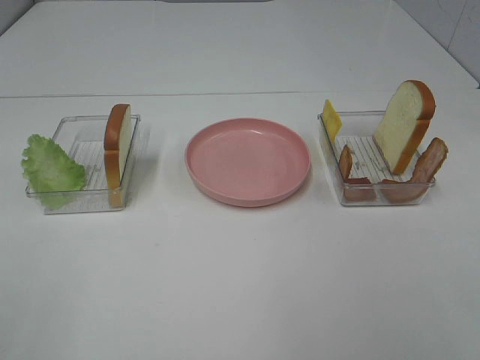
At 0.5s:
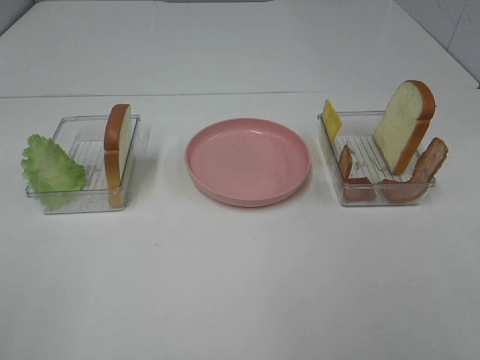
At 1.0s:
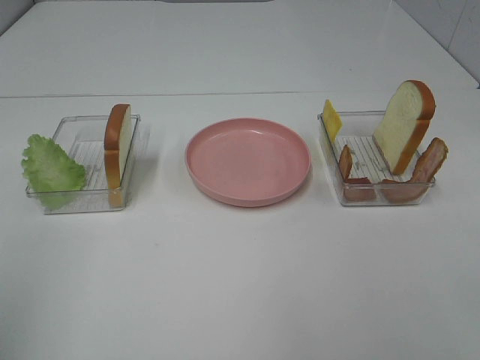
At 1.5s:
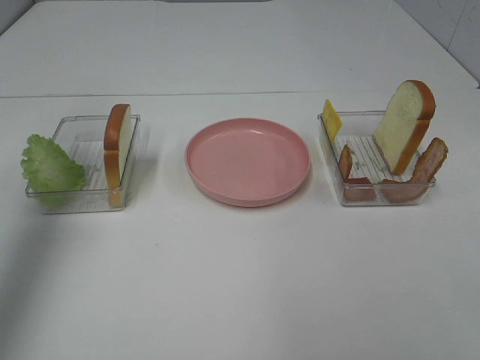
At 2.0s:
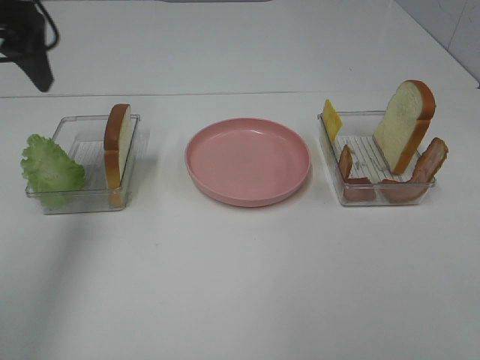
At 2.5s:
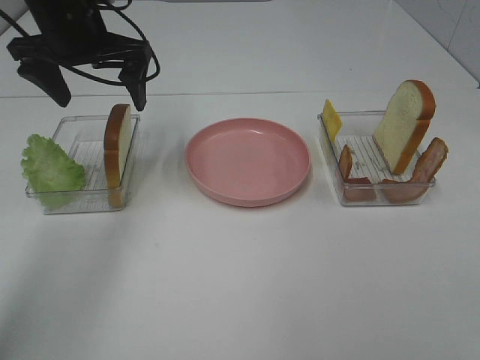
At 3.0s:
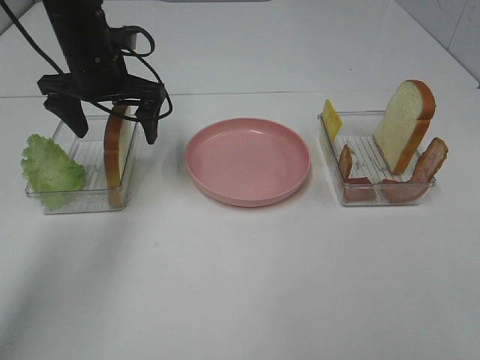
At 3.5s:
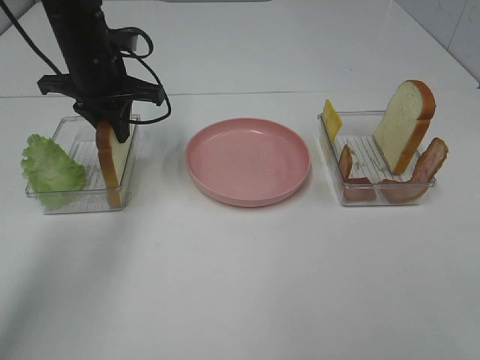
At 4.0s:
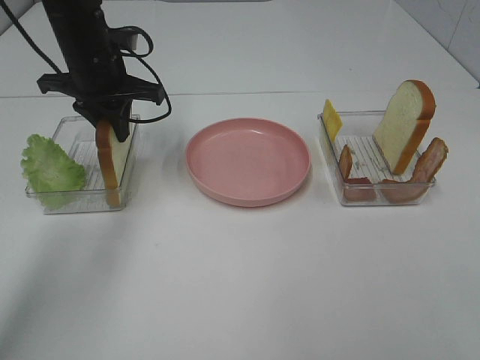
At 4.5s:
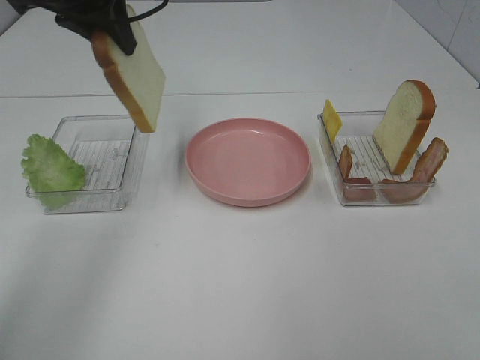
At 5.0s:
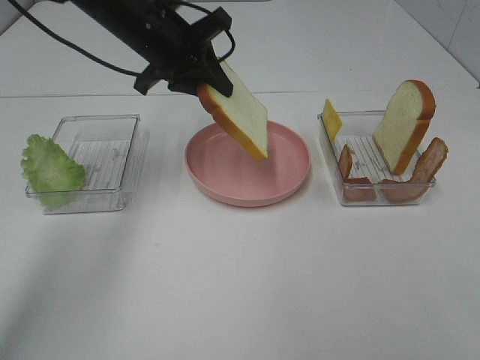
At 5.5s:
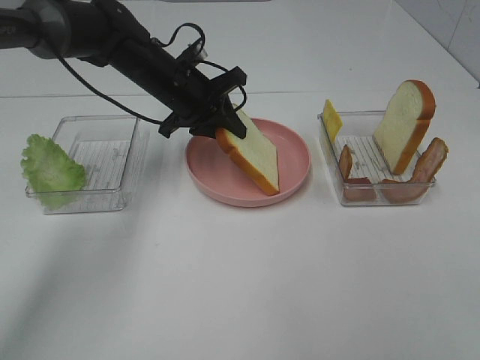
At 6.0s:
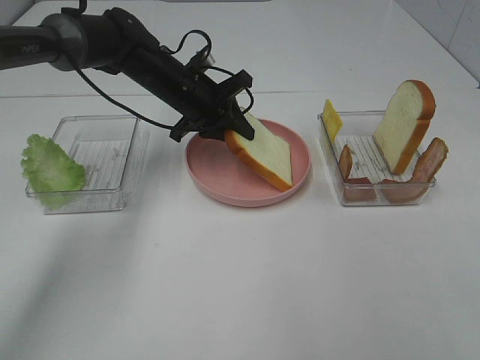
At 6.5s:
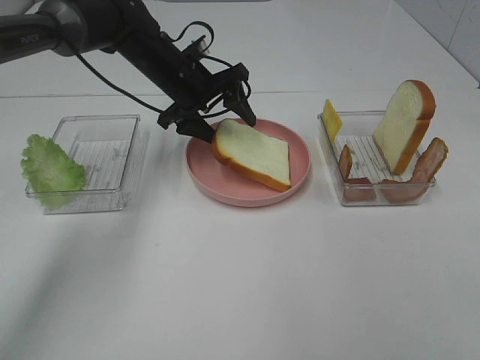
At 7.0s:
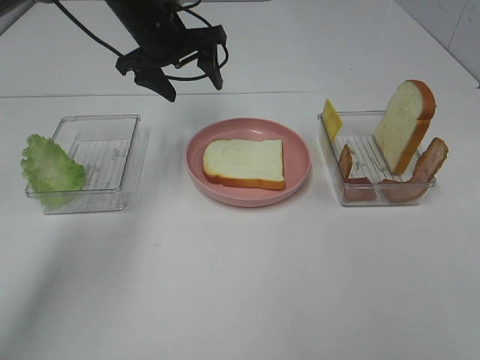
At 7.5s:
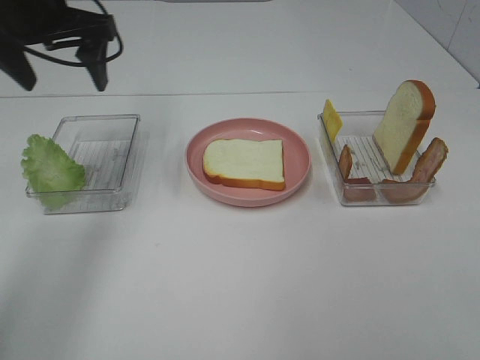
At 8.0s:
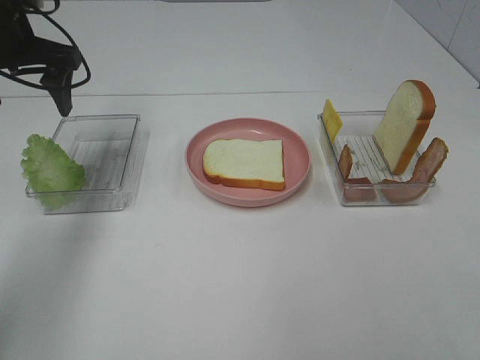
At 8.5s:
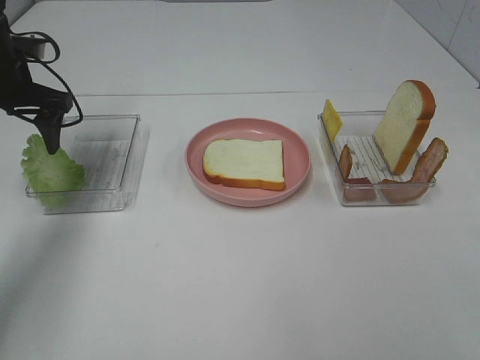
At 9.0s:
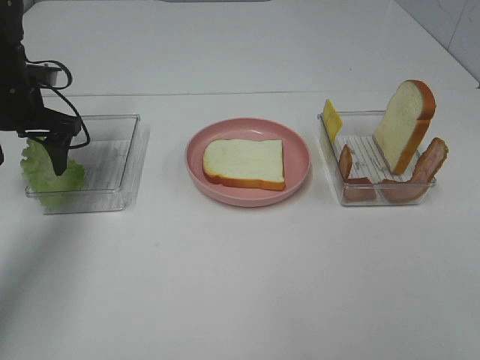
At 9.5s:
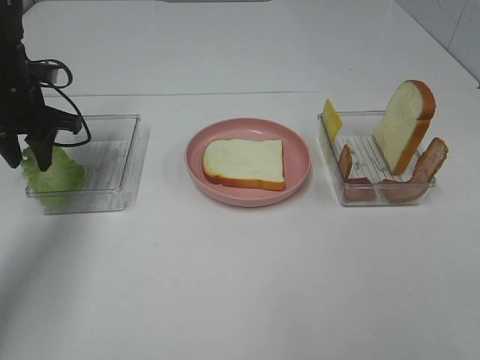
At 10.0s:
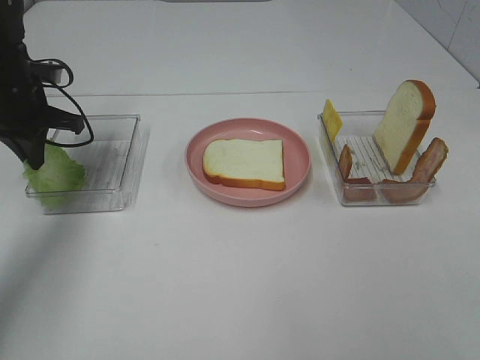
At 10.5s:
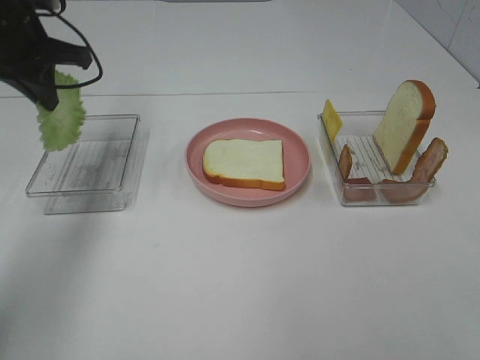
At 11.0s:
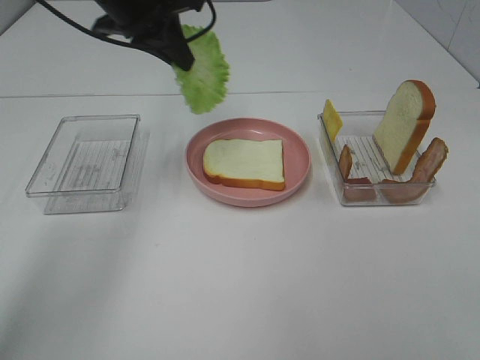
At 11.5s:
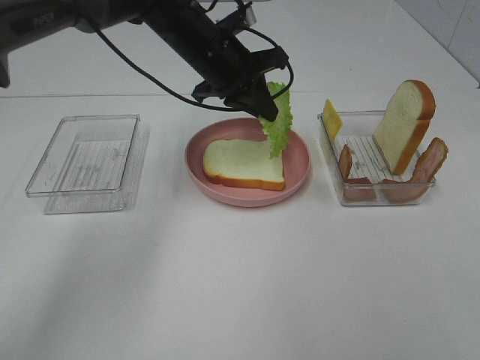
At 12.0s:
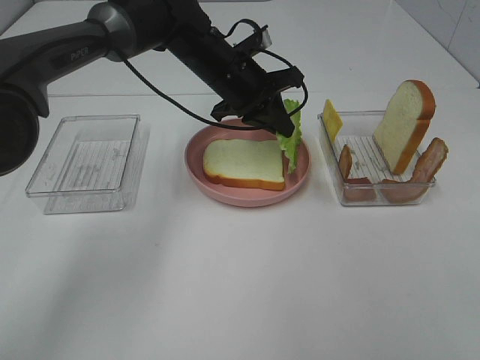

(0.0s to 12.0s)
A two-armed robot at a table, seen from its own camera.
Task of the whole recording: Make sandwiches.
Step, 0.0s - 4.0s: Left hand:grab the bread slice.
Step, 4.5s - 6.5s: Left hand:place the bread slice on the plate.
Step, 7.0s - 10.0s: Left hand:grab the lettuce slice.
0.0s - 2.0s: The left gripper heads forward, covering roughly 35 cm.
2.0s - 4.0s: The left gripper heads downward, forward and to the right, covering approximately 15 cm, and closes up.
4.0s - 6.0s: The left gripper travels to the right and downward by some 10 cm.
6.0s - 8.0s: The left gripper is displaced to the left and upward by approximately 20 cm, and opens.
8.0s - 10.0s: The left gripper shifts roughly 10 cm downward, and closes its fingers.
10.0s - 12.0s: The left gripper heads to the right, covering some 25 cm.

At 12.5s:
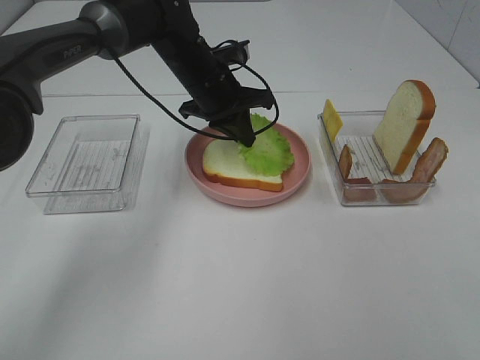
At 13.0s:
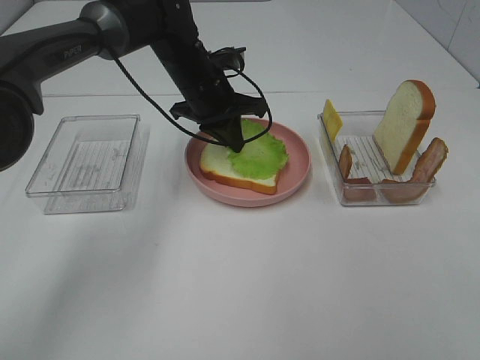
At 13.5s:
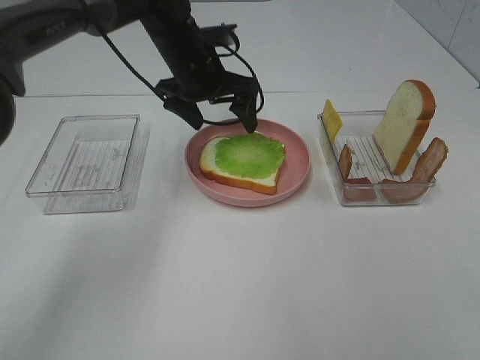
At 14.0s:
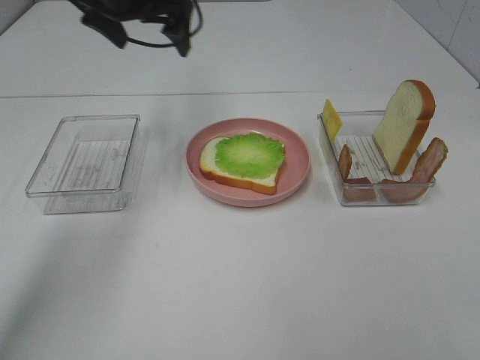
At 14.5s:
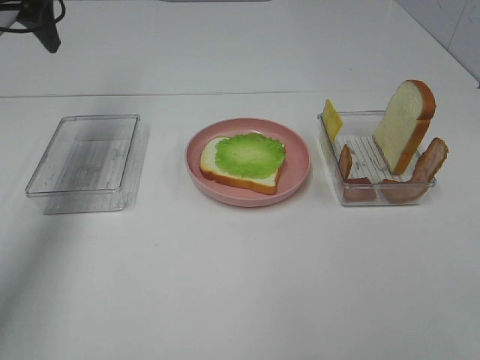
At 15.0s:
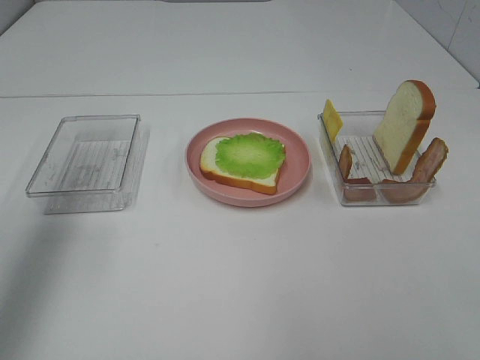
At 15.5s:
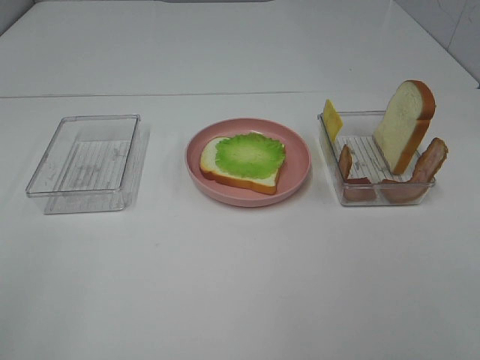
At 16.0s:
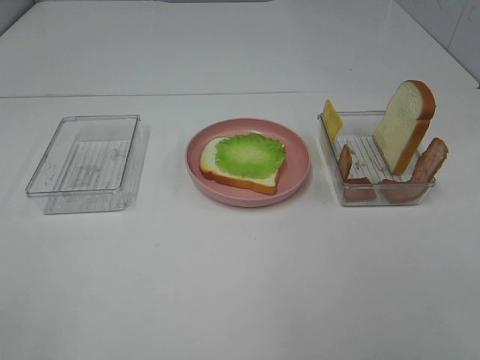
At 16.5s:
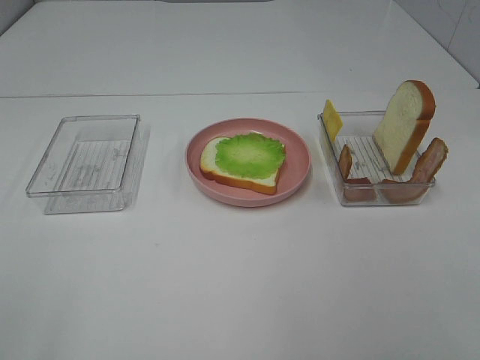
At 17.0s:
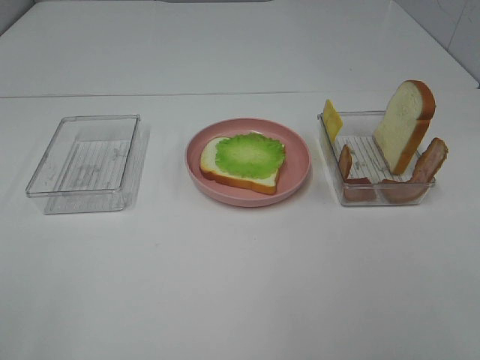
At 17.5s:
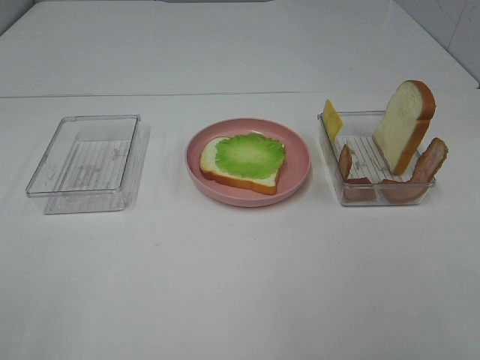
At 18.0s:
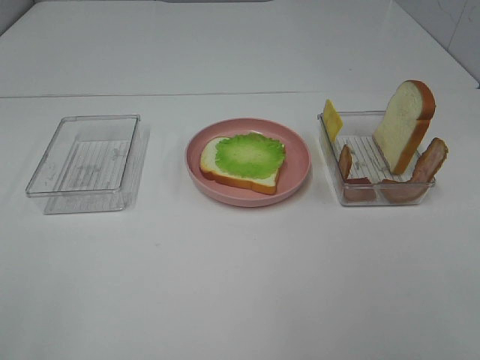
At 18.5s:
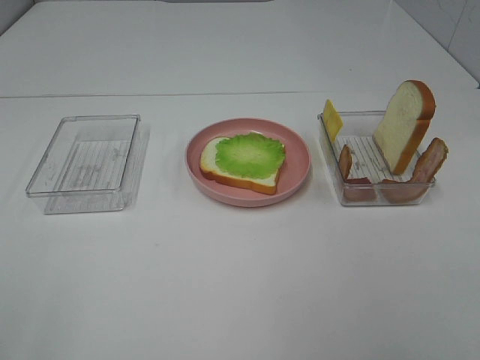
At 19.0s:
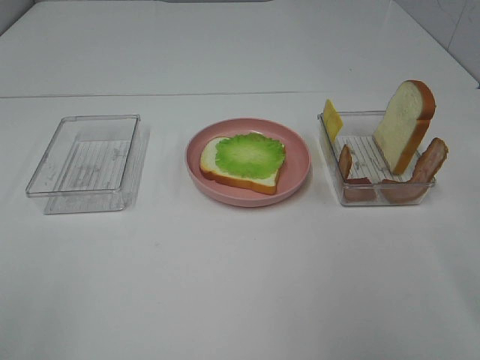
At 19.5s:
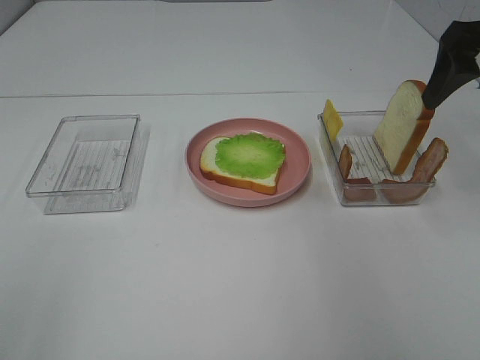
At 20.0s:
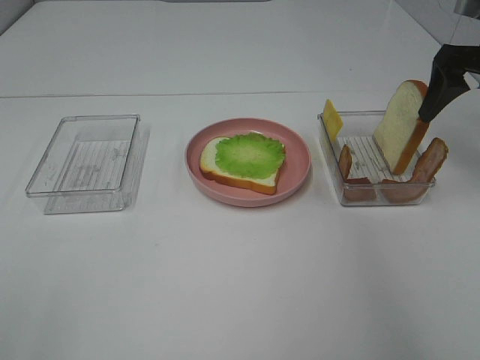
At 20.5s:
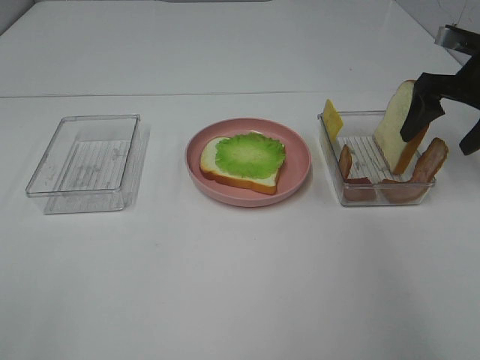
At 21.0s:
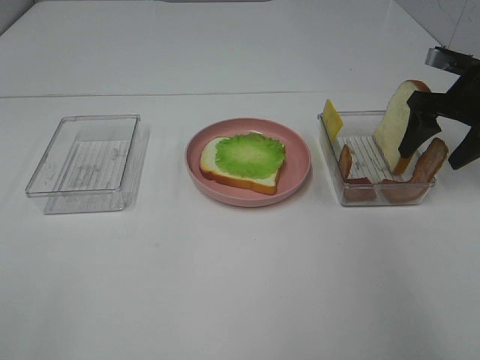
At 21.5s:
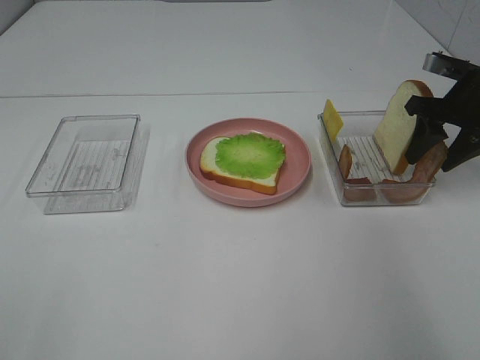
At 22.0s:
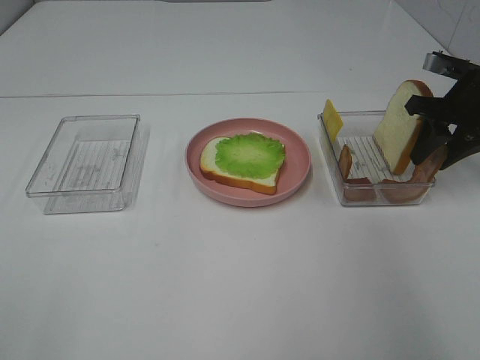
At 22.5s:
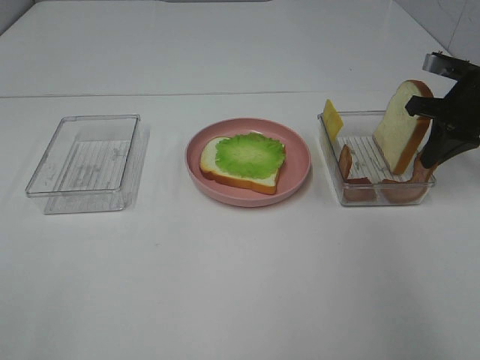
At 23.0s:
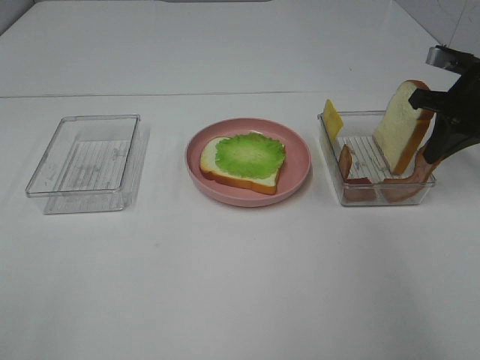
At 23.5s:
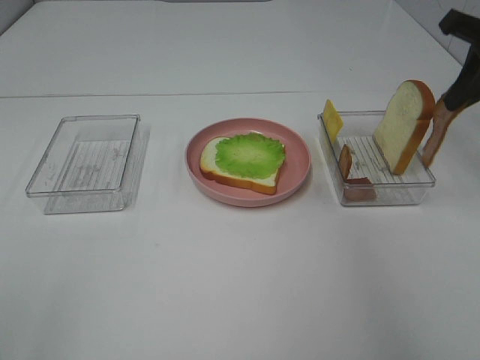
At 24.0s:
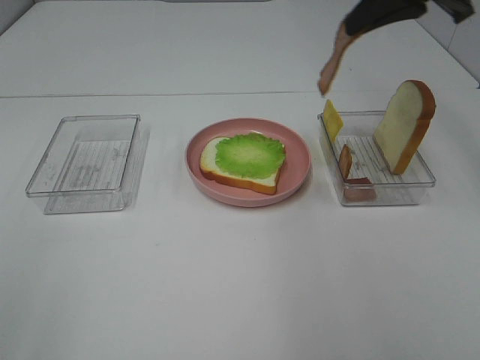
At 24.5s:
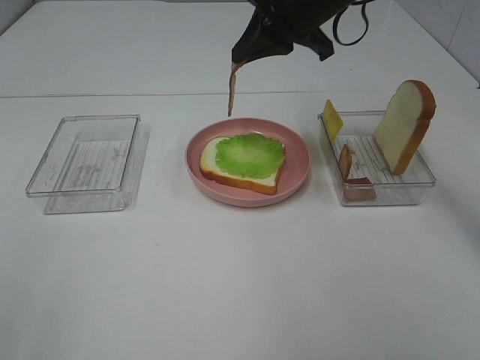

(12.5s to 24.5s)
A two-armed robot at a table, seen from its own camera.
Task of the whole recording: Make sandwiches.
Step, 14.0s - 22.5s: Right hand:grab the bacon.
12.5s - 14.5s: The left gripper heads to the left and upward, covering about 30 cm, and opens up.
14.5s - 16.5s: The left gripper goes approximately 40 cm backward.
18.5s - 20.5s: The right gripper travels forward by some 35 cm.
20.5s - 22.5s: The right gripper closes its fingers.
22.5s - 24.5s: The right gripper travels to the left and upward by about 25 cm.

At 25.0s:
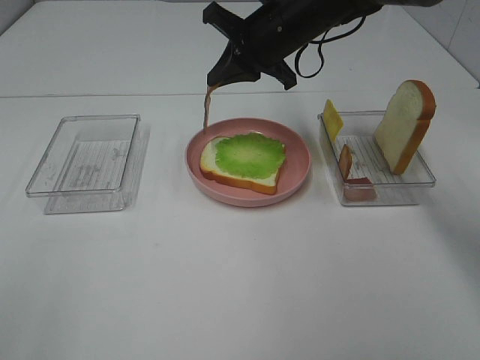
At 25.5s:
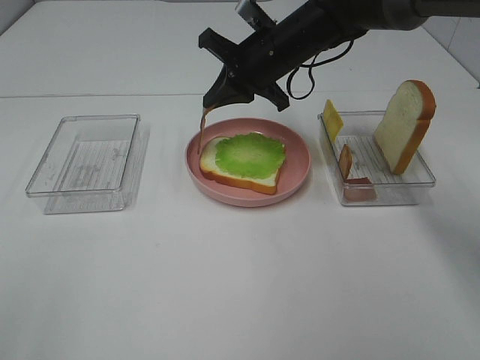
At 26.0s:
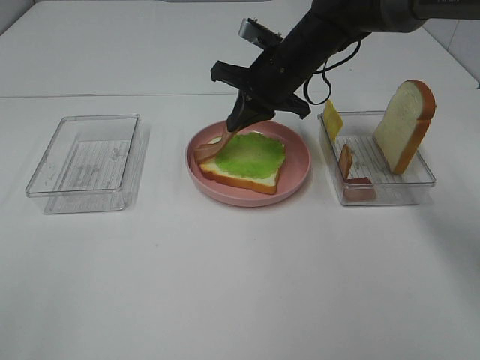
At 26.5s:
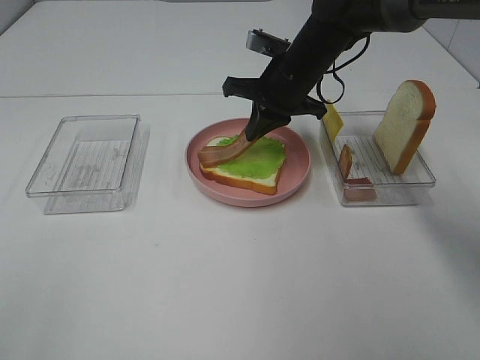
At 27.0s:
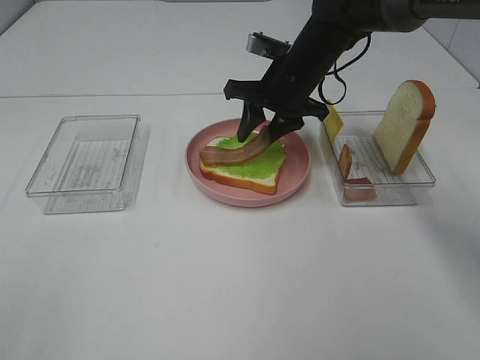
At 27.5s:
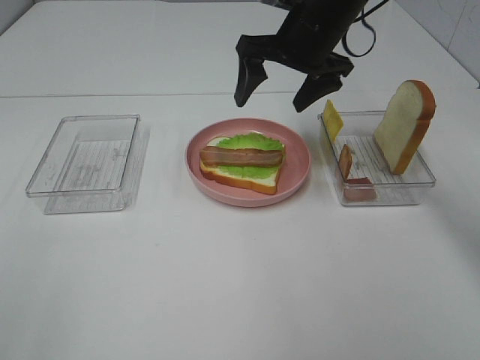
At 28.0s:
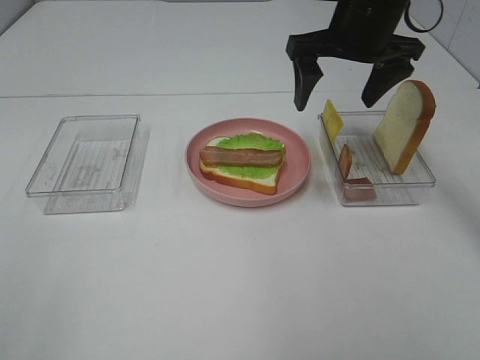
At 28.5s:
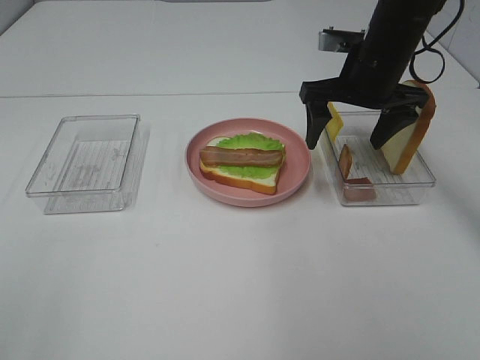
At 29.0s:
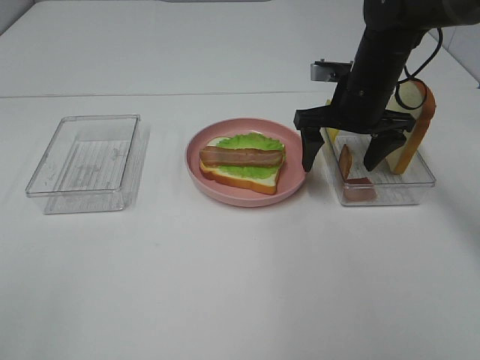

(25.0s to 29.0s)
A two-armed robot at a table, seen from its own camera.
Task of the whole recording: Make sandwiches.
Step, 25.0s - 27.5s: Right hand:place bacon on lettuce slice.
25.0s - 27.0s: The right gripper moves roughly 5 cm, and opens up.
27.0s - 29.0s: The right gripper moves to the right, some 10 cm, reaches approximately 10 cm upward, then returns, and opens up.
